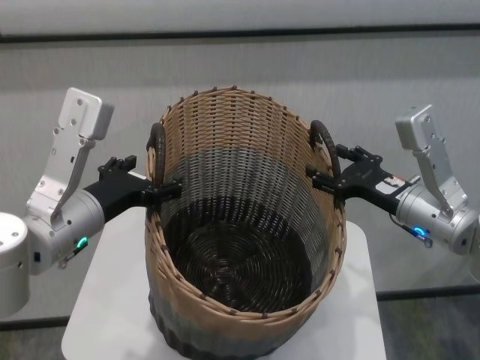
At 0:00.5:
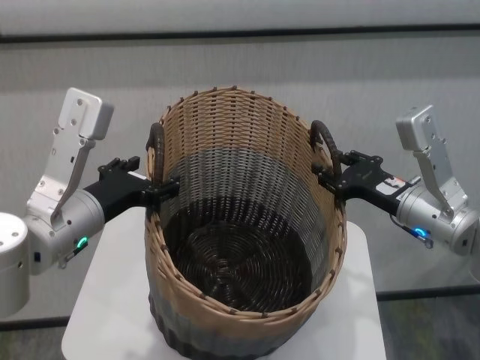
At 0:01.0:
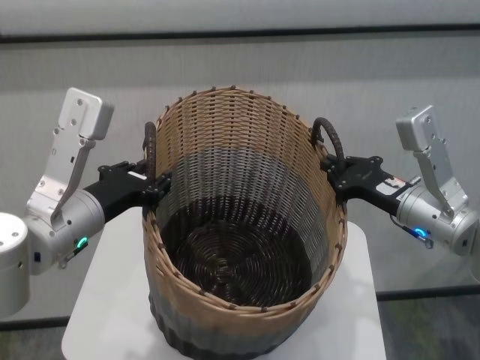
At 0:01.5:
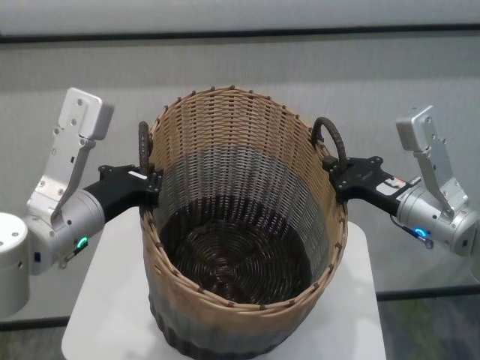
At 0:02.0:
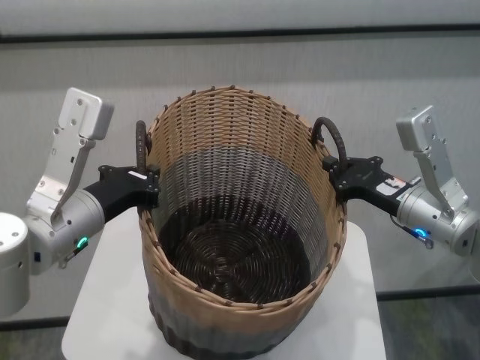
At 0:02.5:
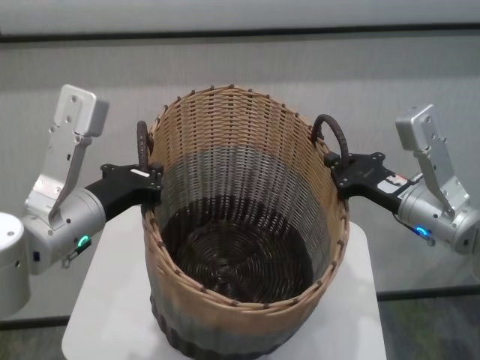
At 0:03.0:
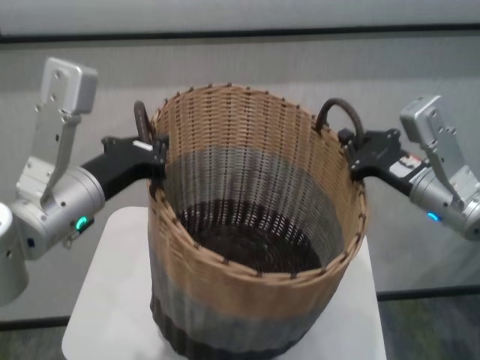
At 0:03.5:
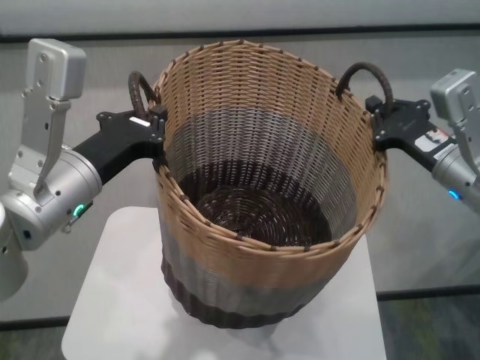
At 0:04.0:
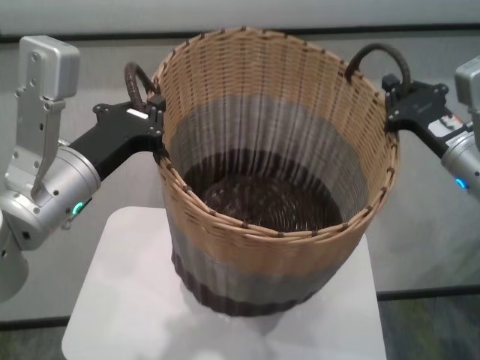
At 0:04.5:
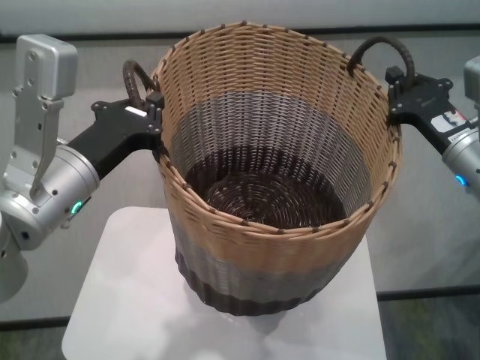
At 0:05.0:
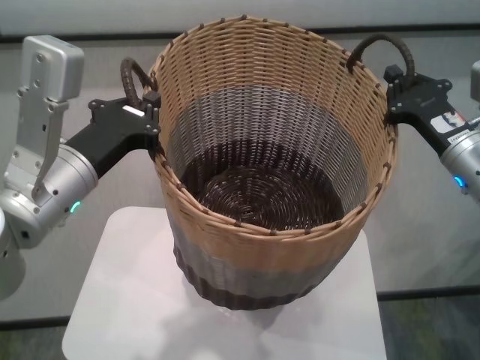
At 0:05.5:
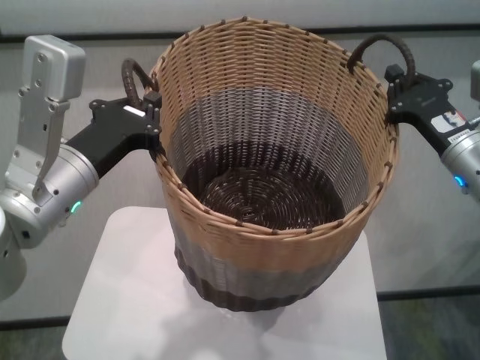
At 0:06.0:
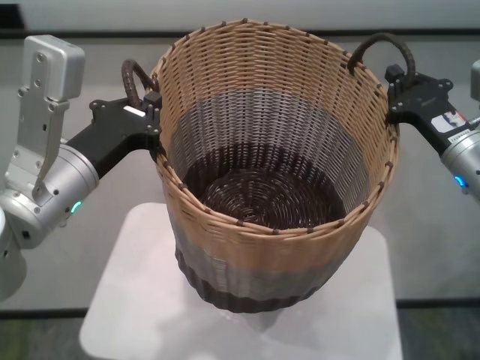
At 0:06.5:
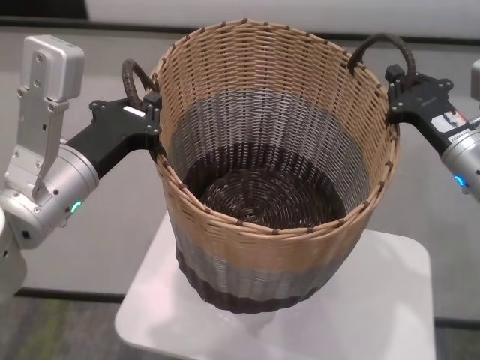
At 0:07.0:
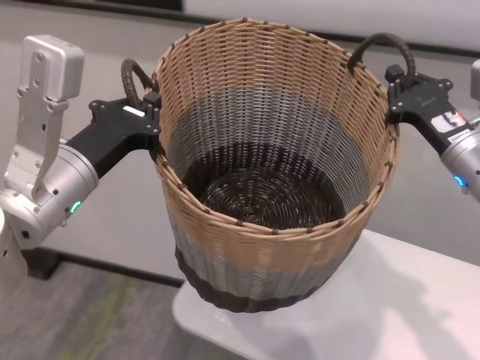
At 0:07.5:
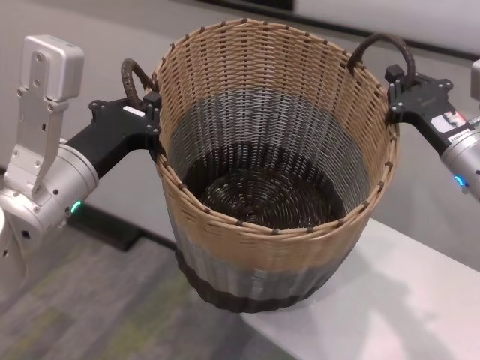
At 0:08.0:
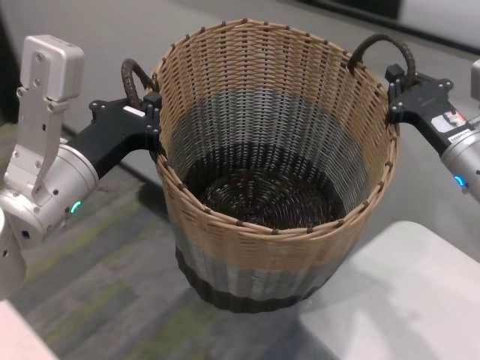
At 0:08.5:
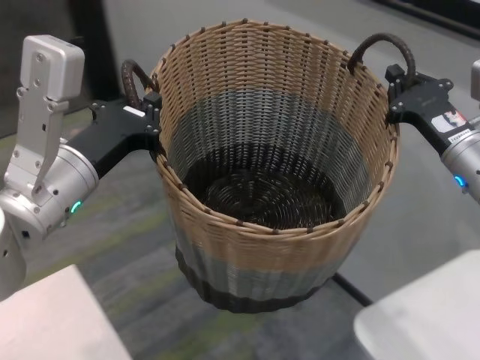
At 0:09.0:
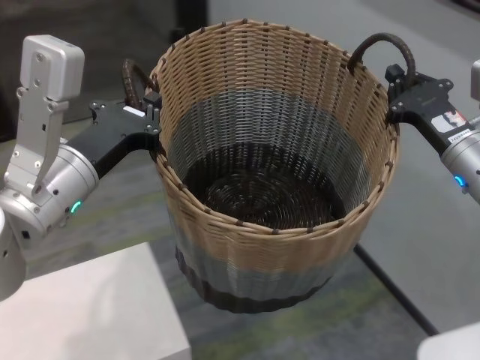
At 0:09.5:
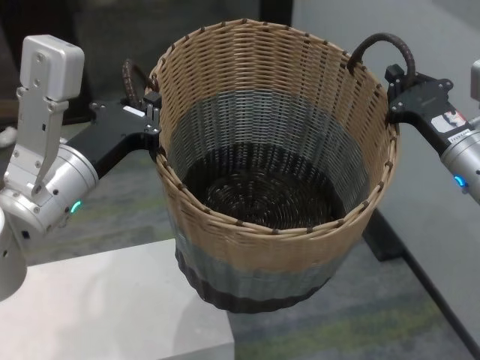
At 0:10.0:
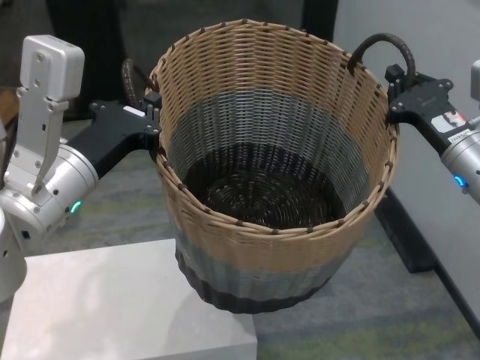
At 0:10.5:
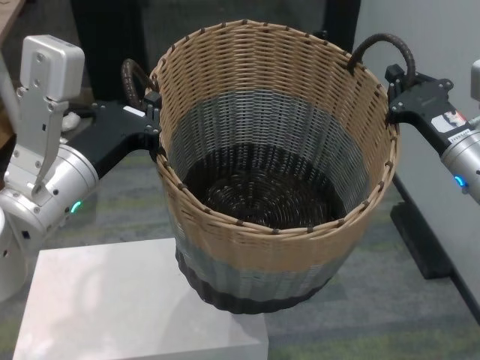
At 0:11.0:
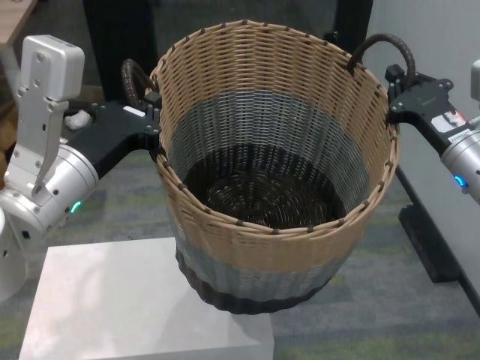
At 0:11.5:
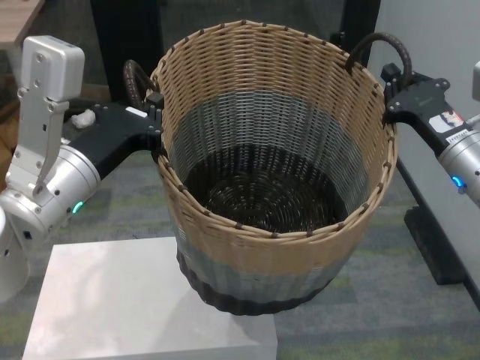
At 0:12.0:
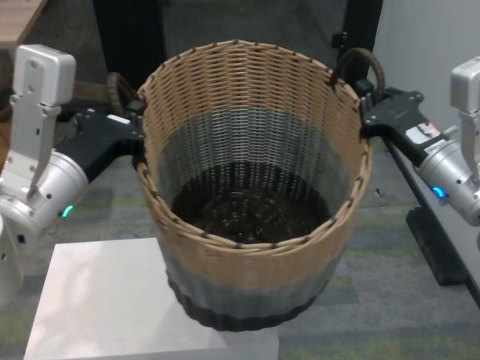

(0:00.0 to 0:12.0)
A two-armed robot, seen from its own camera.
Task of the whole recording: carry the clothes basket in coordination with both hands.
Step, 0:00.0 - 0:02.0: Grasp the basket with both grippers.
Step, 0:02.5 - 0:11.0: Move the basket above the other table.

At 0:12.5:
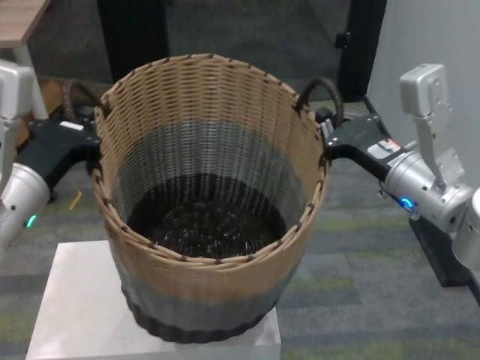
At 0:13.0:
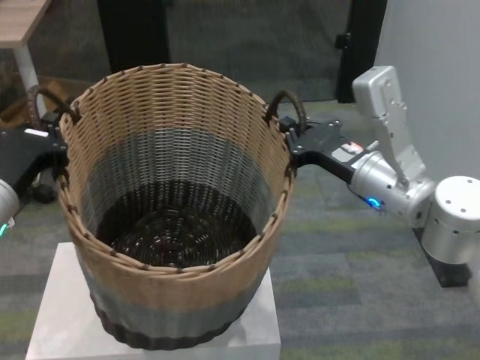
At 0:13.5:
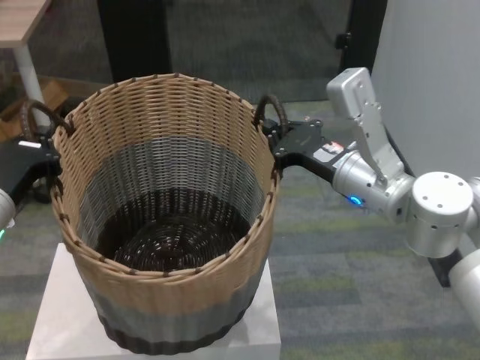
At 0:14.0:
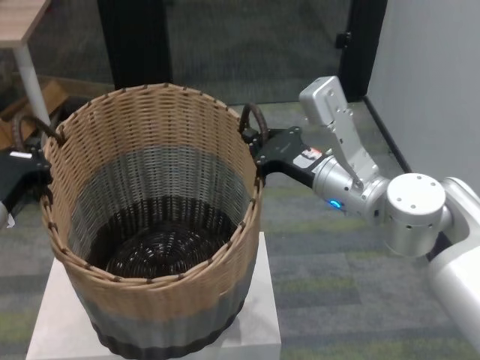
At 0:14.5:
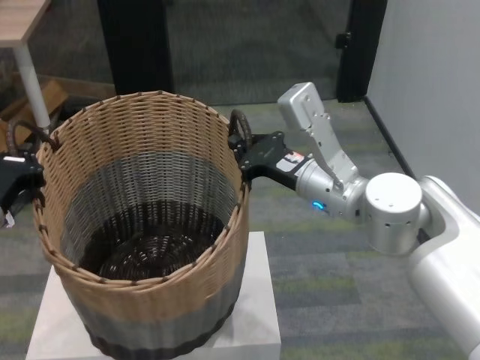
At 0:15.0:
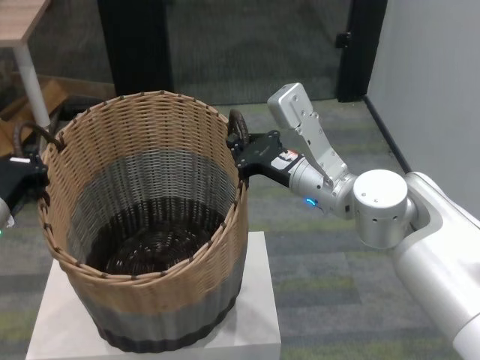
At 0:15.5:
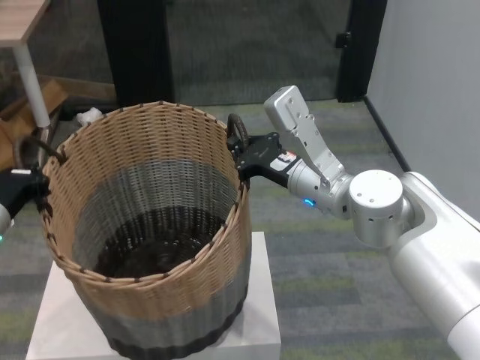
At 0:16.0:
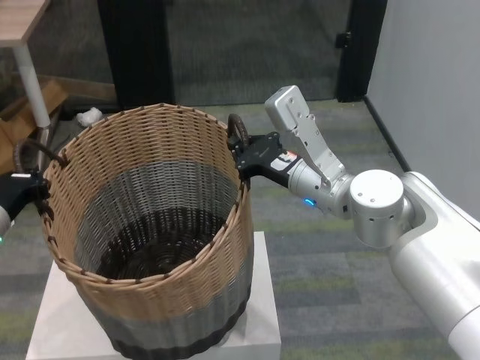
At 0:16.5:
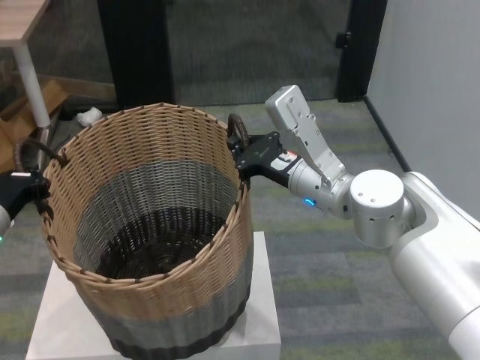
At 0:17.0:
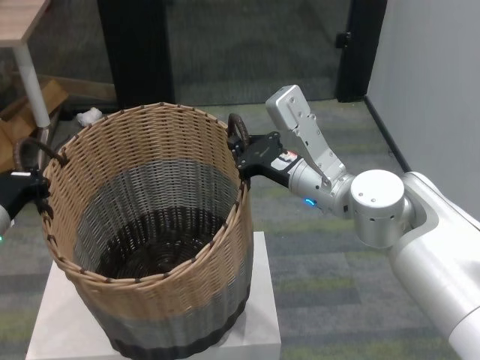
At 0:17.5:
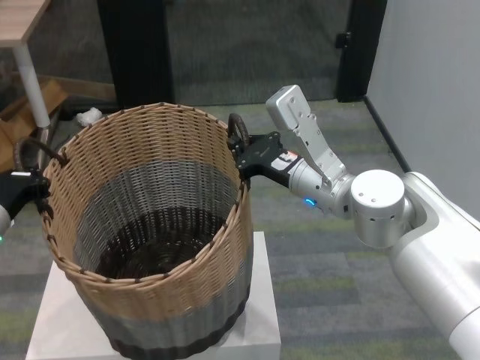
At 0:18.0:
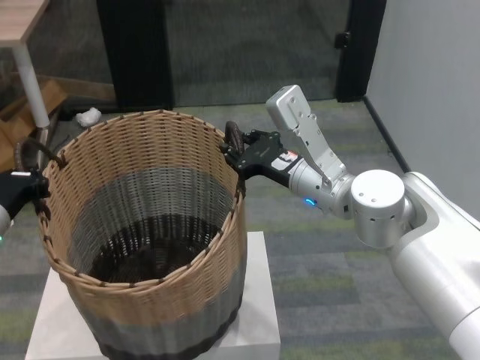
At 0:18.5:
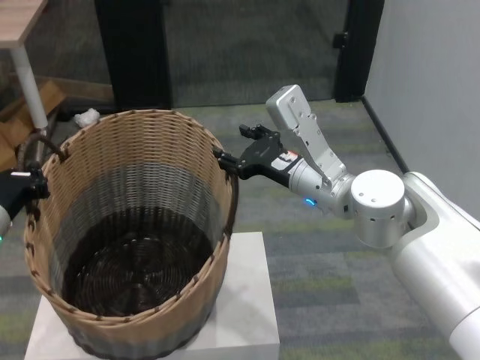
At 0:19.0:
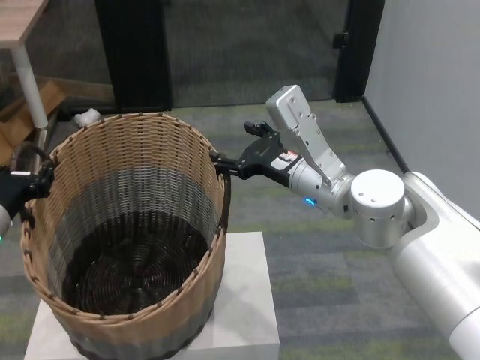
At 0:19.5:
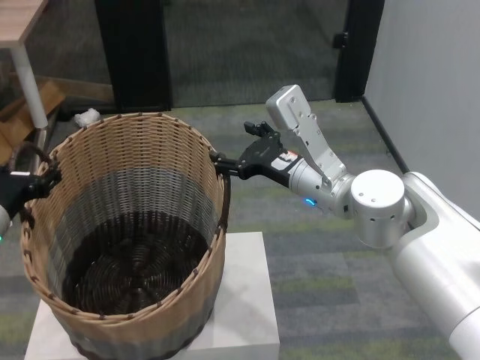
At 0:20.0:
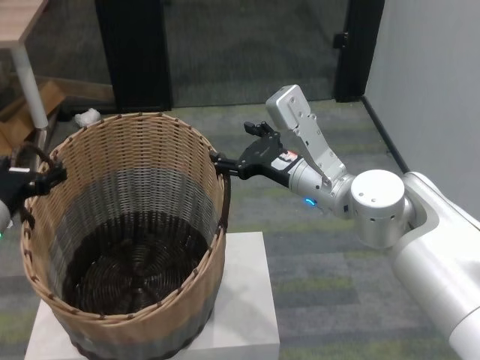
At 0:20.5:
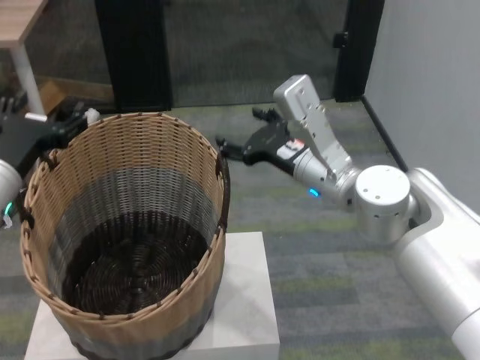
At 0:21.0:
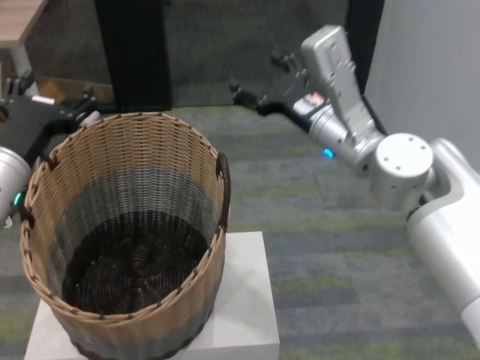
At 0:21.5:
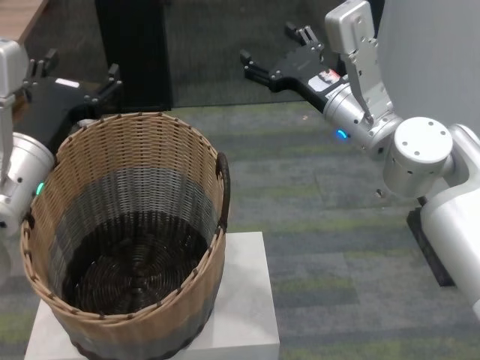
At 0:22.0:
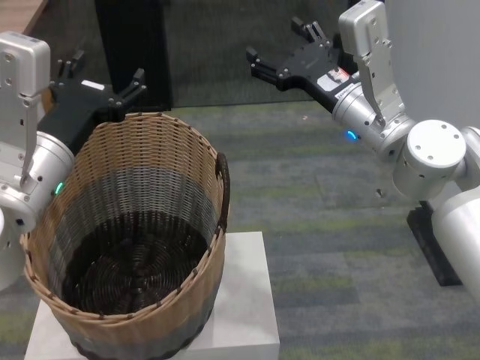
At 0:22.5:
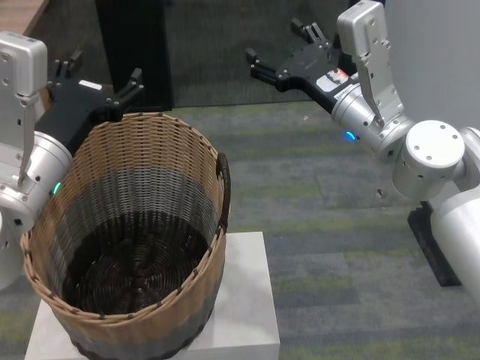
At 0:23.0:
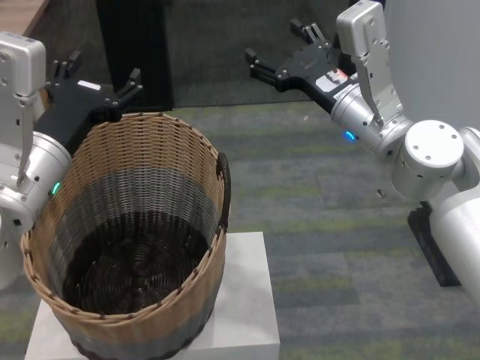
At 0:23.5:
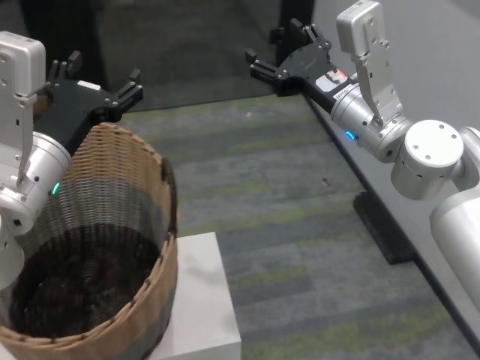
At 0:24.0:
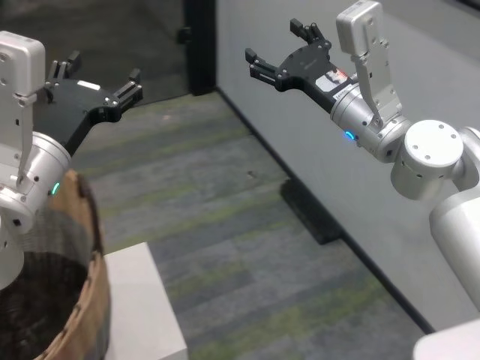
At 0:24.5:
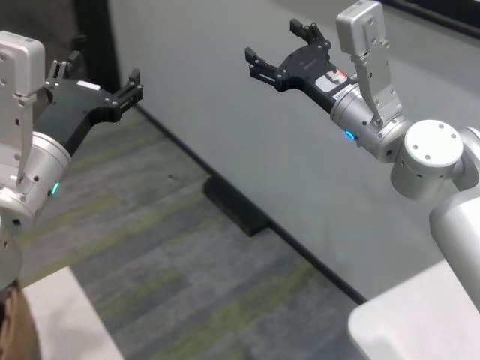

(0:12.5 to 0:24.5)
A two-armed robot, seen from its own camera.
Task of the whole recording: carry the clothes basket in coordination with both hands.
Step, 0:12.5 - 0:18.0: Place the basket on the table with right gripper.
Step, 0:18.5 - 0:19.5: Place the basket on the table with left gripper.
